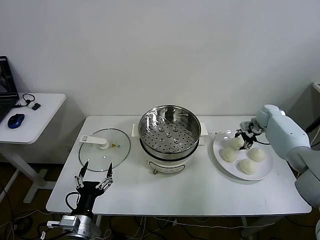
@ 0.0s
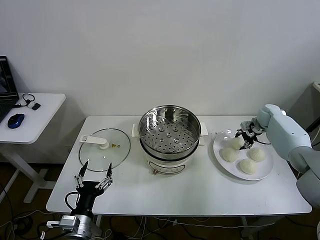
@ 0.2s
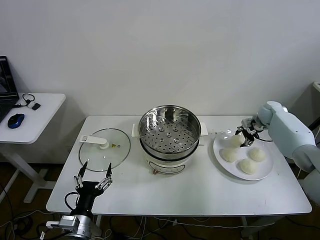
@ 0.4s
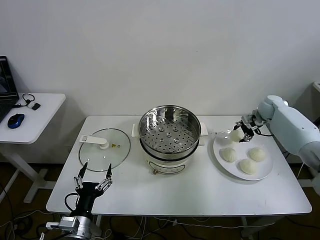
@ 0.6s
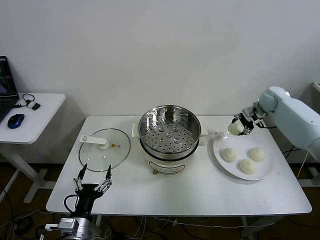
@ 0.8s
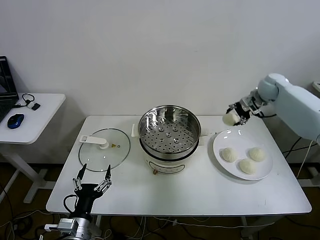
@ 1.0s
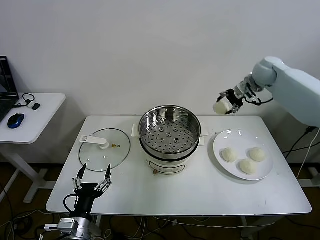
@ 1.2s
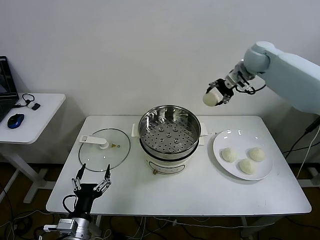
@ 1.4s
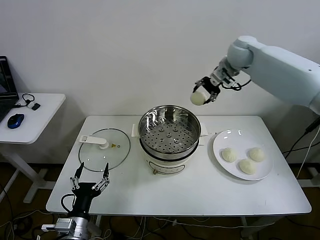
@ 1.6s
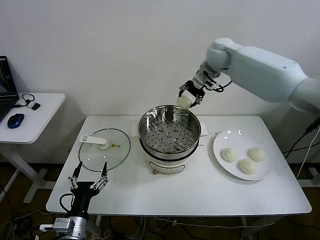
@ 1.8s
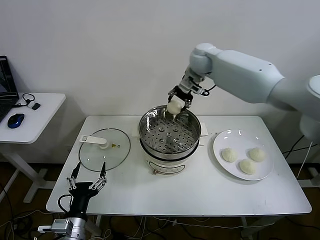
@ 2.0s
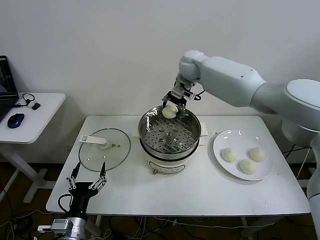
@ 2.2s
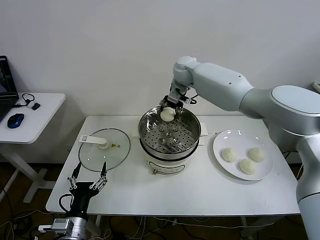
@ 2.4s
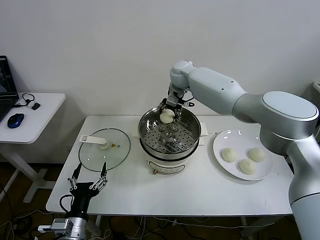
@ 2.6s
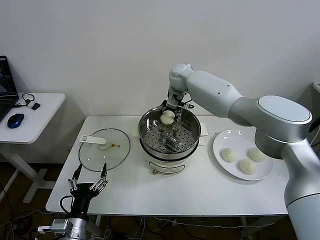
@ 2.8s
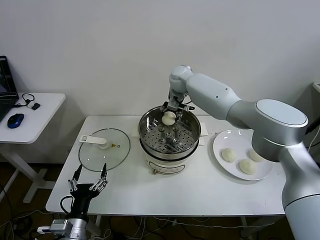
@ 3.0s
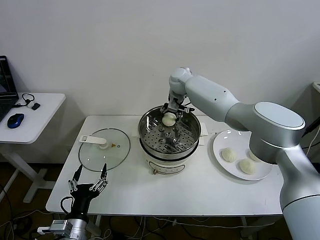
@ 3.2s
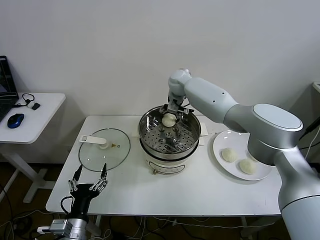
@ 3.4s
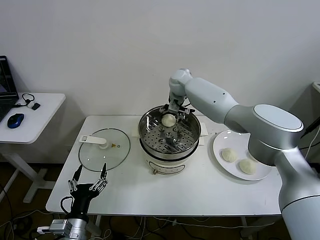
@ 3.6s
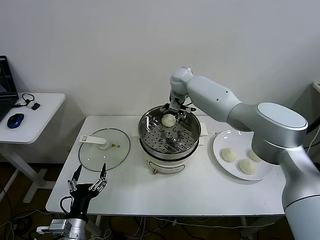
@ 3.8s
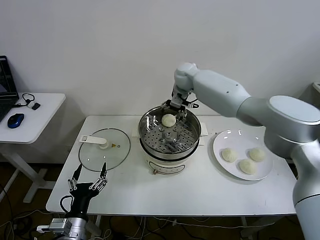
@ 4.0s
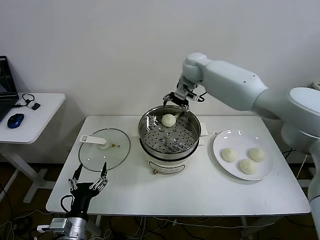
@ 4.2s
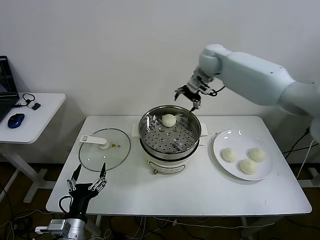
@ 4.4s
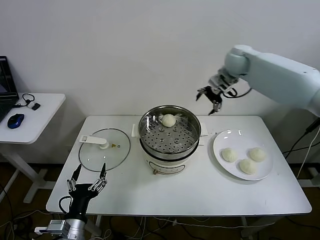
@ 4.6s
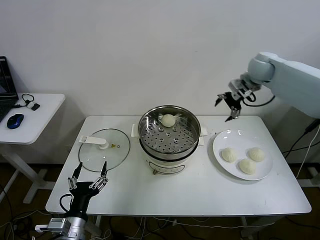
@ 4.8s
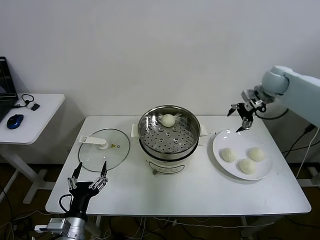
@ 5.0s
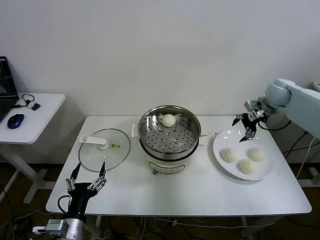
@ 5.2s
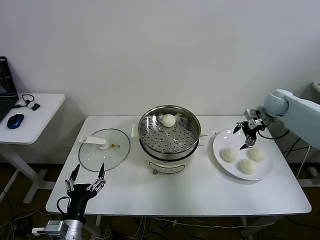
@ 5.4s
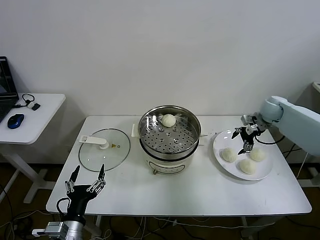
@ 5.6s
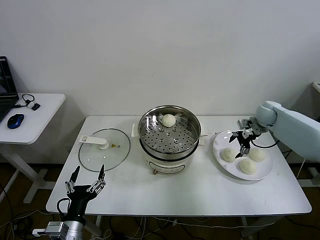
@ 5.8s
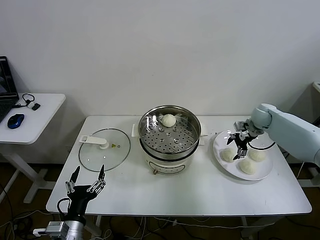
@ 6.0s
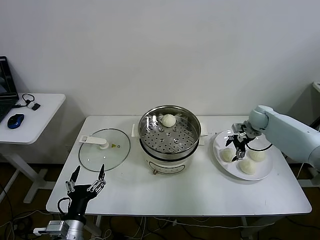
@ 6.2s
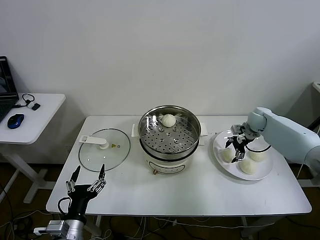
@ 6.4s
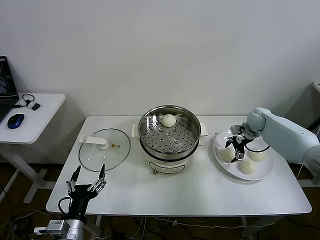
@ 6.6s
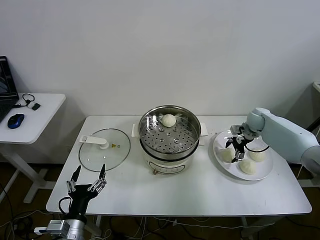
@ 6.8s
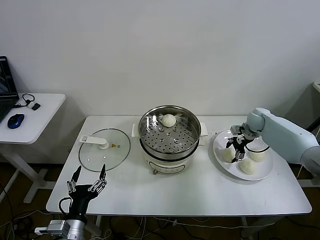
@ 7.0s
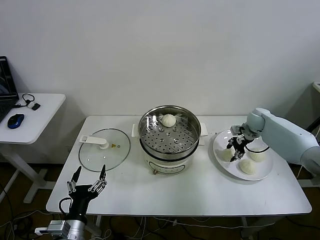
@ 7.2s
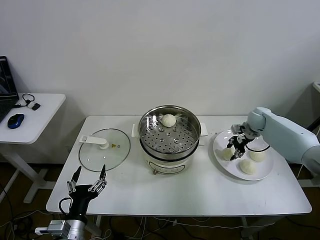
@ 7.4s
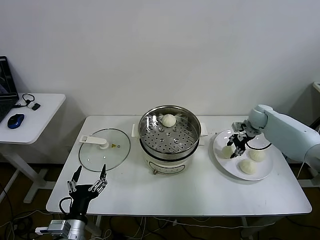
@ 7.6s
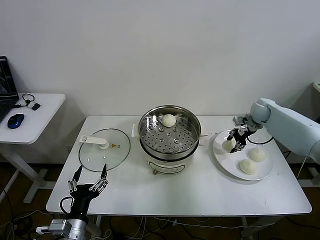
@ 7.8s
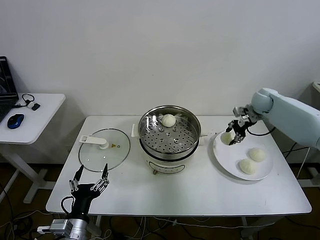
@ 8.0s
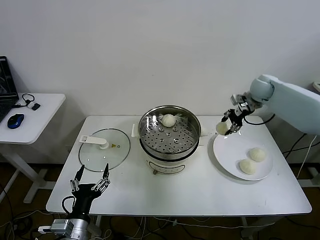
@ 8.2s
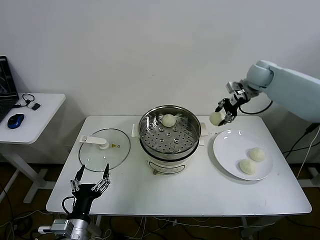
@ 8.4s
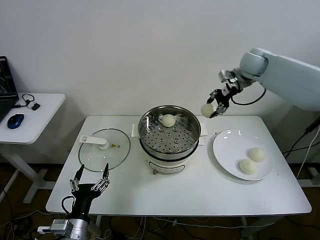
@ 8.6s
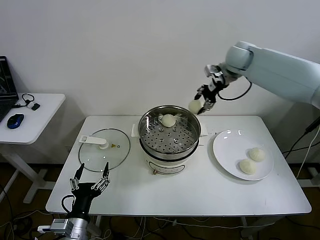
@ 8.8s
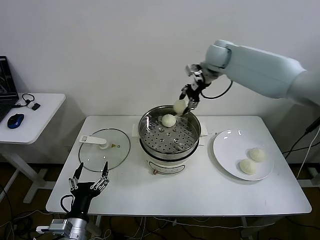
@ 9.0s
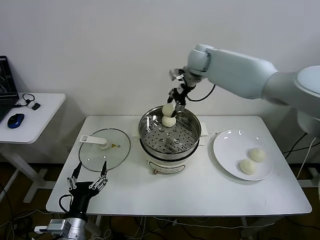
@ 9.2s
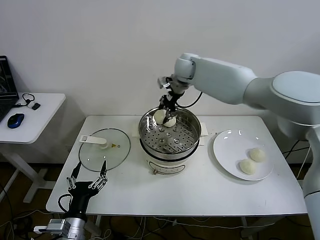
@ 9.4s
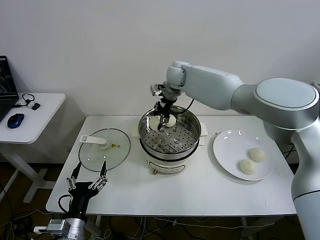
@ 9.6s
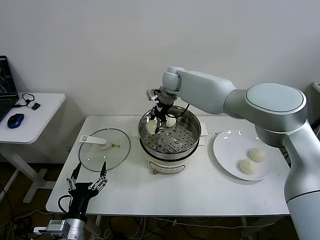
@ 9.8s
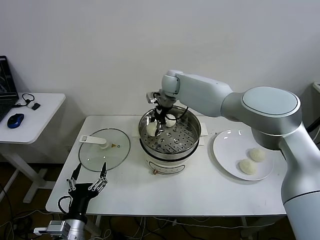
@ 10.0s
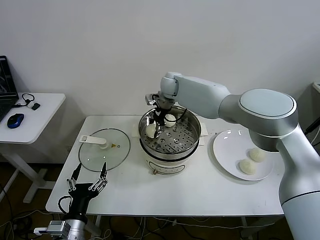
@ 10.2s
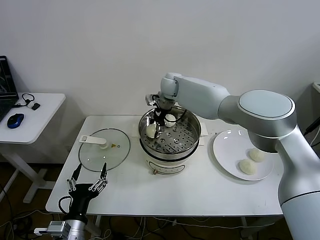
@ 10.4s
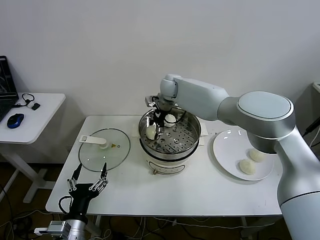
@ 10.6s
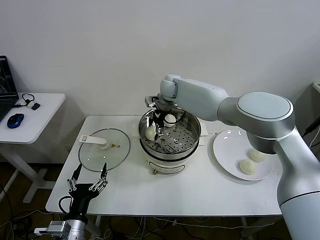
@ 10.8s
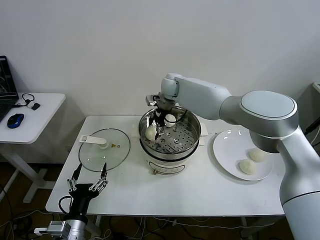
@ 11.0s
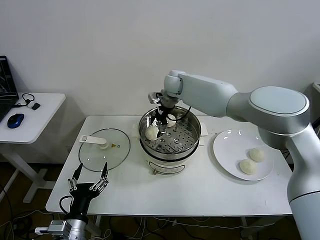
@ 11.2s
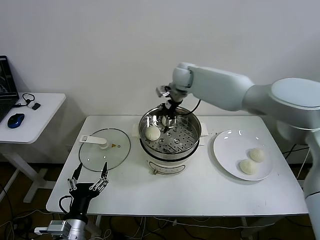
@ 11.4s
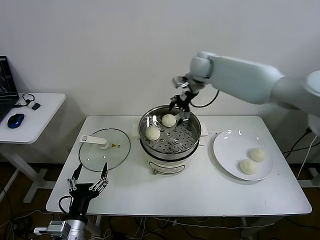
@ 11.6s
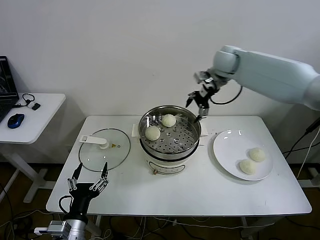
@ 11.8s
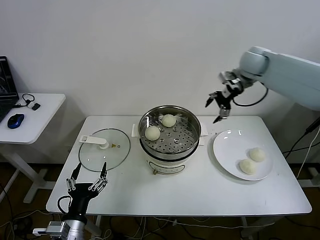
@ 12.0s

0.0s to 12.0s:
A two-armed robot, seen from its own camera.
Step, 0.2s to 4.0s: Place the baozi on the steamer with right gripper.
Step, 4.2s to 7.0s: Grasp the baozi in the plate with right gripper.
Step, 7.4s to 11.4s: Place the baozi on the steamer with right gripper.
0.0s to 1.6s: The right gripper is displaced upward and to the left by roughly 35 cm.
1.6s to 3.0s: The right gripper travels to the left and downward by roughly 20 cm.
3.0s to 4.4s: The right gripper moves to the right and upward, approximately 15 cm, and opens up.
4.4s to 6.0s: The right gripper travels downward and to the right by approximately 30 cm.
6.0s to 7.6s: The right gripper closes its fingers.
7.6s to 9.0s: The right gripper heads to the left and upward, covering roughly 35 cm.
9.0s to 10.4s: The right gripper travels to the left and downward by about 20 cm.
10.4s to 12.0s: The right gripper goes some 30 cm to the right, and opens its fingers.

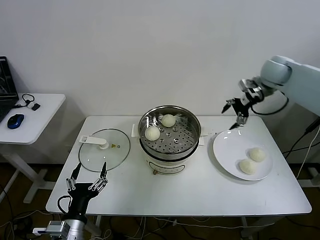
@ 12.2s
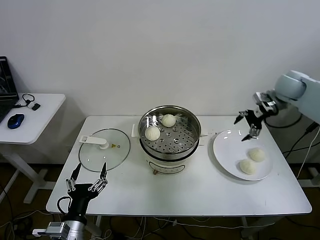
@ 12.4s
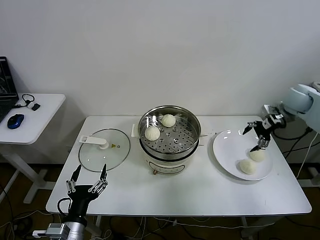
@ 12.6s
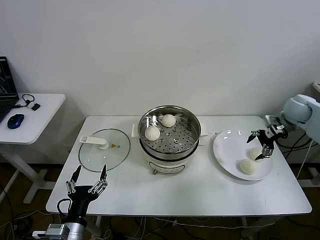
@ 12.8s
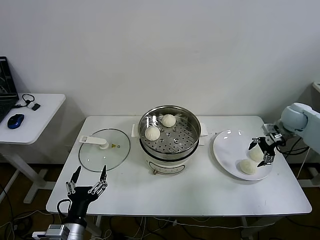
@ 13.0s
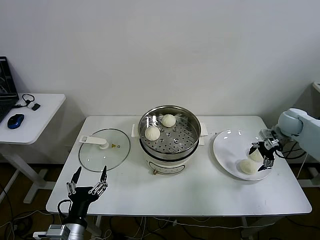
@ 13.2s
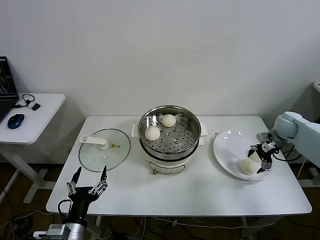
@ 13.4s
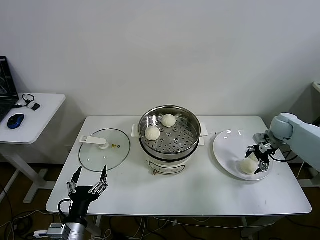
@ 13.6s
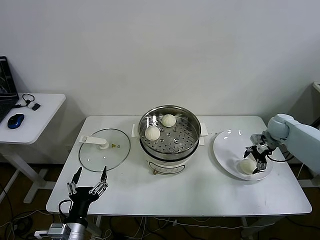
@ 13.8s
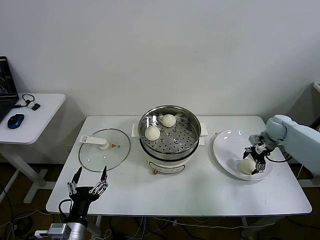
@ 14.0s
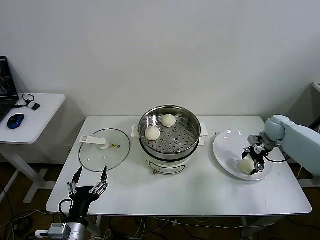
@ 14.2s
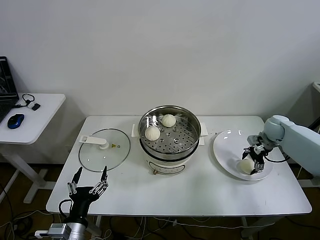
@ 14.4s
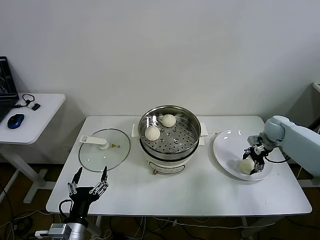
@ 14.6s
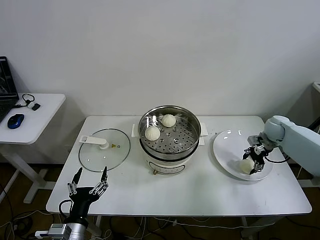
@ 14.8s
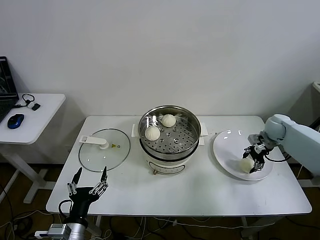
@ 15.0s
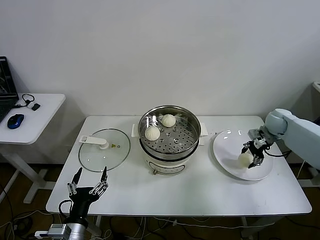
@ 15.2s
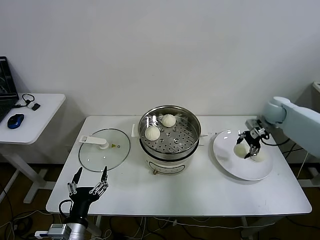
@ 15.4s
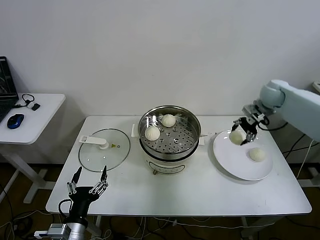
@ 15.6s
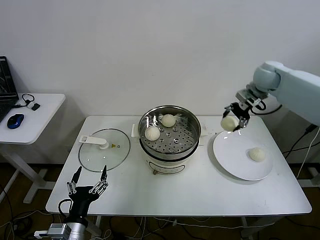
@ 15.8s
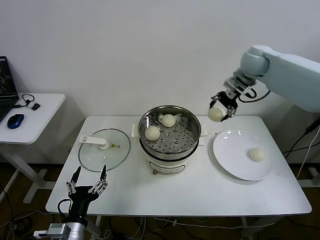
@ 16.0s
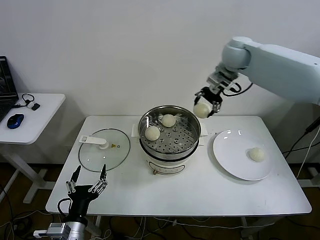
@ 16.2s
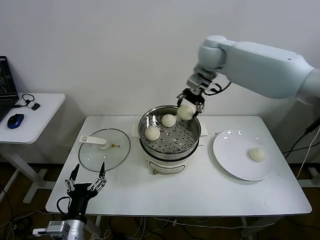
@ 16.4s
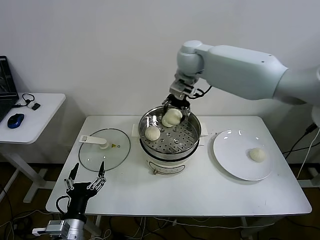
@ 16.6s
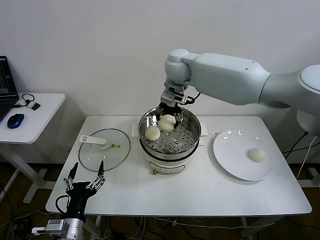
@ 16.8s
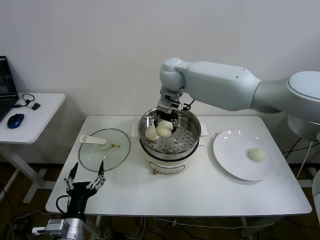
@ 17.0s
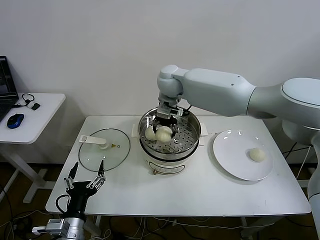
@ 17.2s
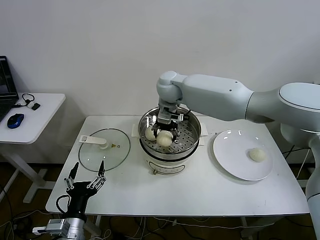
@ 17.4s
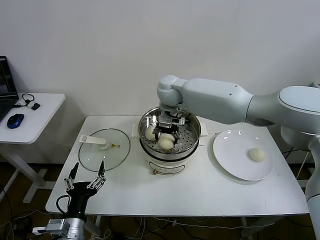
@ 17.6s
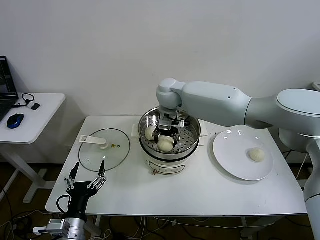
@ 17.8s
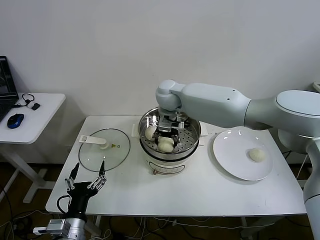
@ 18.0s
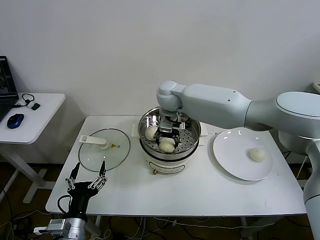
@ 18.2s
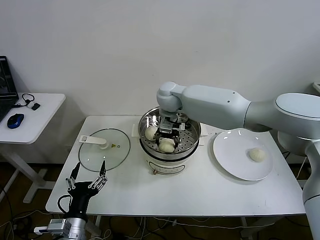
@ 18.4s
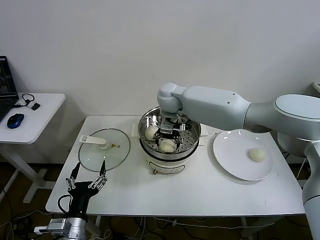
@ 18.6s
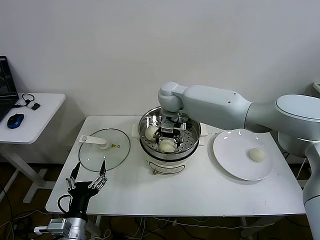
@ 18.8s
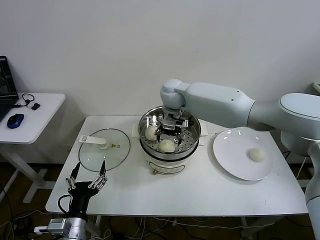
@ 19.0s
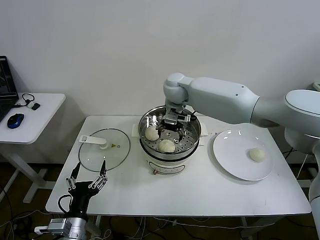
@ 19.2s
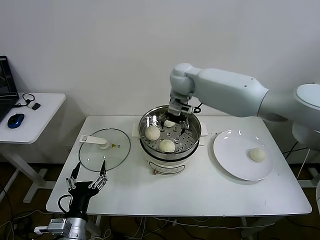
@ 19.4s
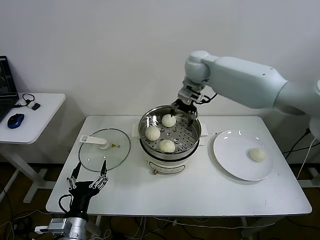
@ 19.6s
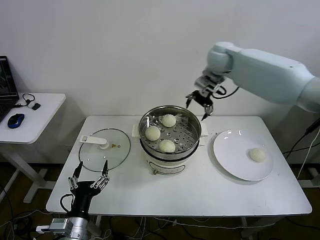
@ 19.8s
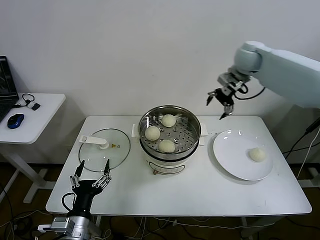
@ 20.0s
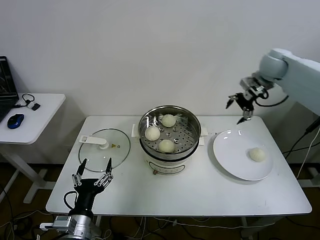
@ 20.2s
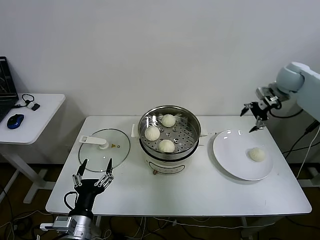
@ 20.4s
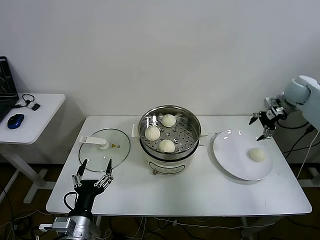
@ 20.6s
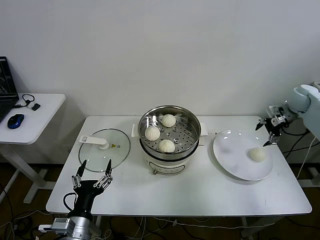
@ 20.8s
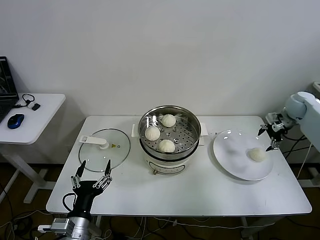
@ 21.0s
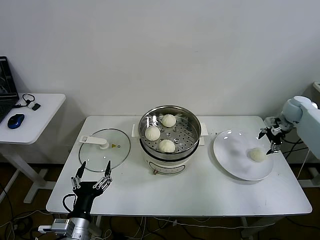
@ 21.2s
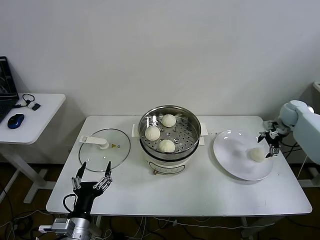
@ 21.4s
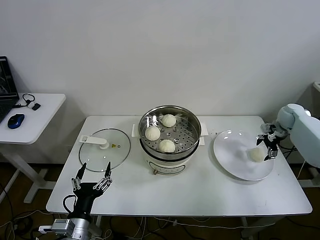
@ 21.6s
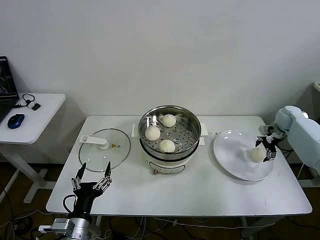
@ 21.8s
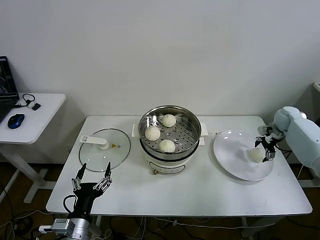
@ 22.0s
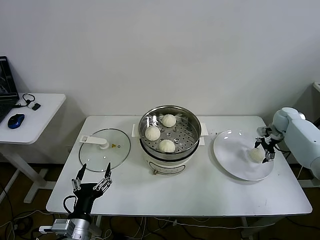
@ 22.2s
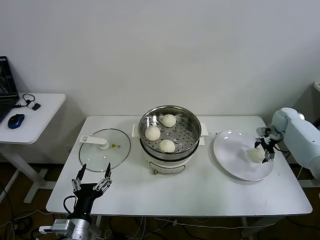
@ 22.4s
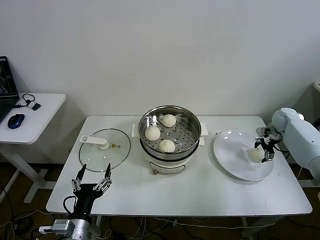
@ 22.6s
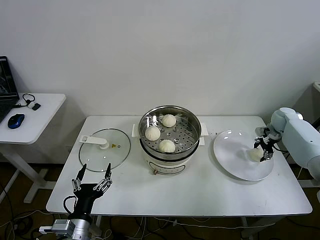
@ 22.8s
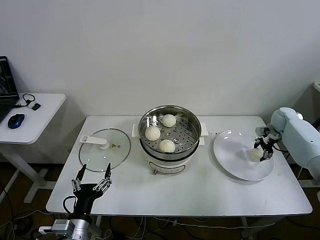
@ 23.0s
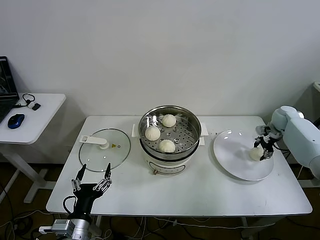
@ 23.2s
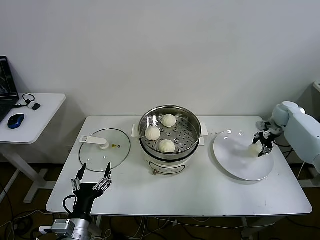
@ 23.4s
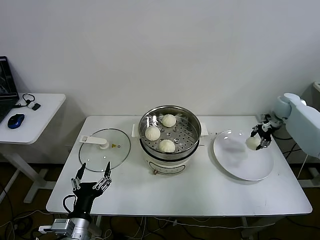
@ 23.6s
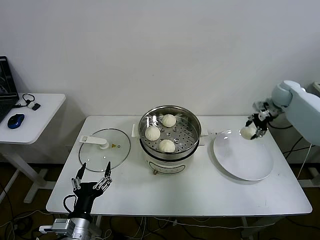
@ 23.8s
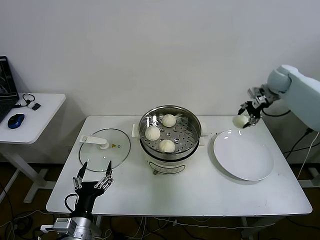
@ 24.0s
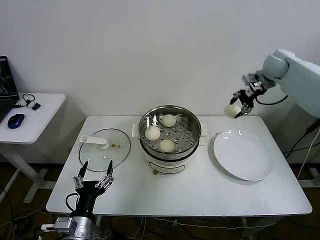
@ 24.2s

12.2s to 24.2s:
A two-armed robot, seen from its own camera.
Step, 12.2s to 14.6s: Grasp the baozi in the plate with right gripper.
Step, 14.8s to 19.0s: Place the baozi on the steamer with right gripper.
Step, 19.2s to 23.0s: Grasp the baozi in the plate with right gripper.
12.2s to 13.8s: The right gripper heads downward, covering some 20 cm.
13.8s to 15.2s: The right gripper closes up.
15.2s to 16.6s: The right gripper goes approximately 40 cm to the left and upward.
16.6s to 18.2s: The right gripper is displaced downward and to the left by about 15 cm.
18.2s to 19.8s: The right gripper moves to the right and upward, roughly 20 cm, and opens up.
19.8s to 21.2s: The right gripper goes some 35 cm to the right and downward.
21.2s to 22.6s: The right gripper is displaced downward by some 5 cm.
22.6s to 24.2s: The right gripper heads upward and to the left, covering approximately 25 cm, and closes its fingers.
